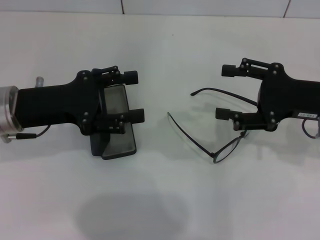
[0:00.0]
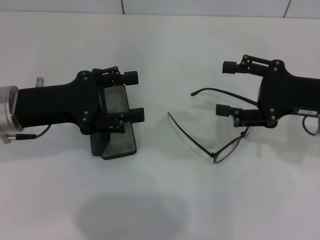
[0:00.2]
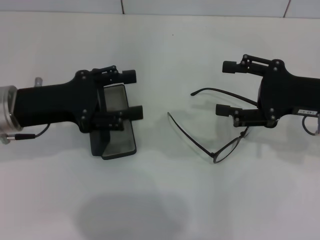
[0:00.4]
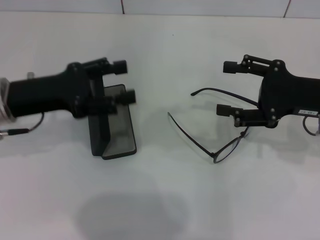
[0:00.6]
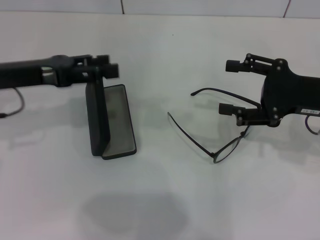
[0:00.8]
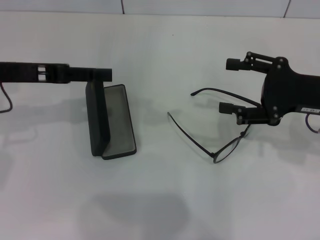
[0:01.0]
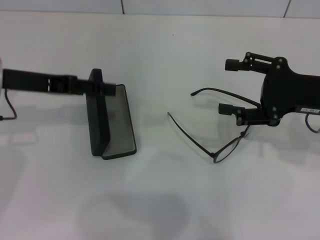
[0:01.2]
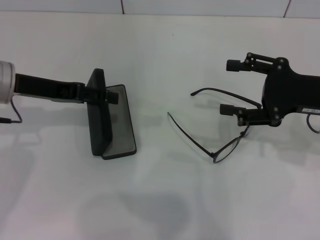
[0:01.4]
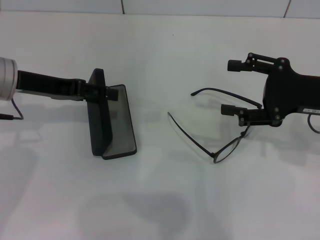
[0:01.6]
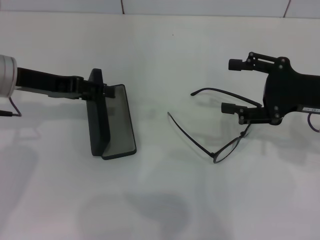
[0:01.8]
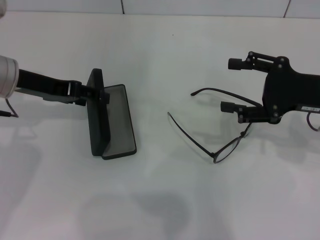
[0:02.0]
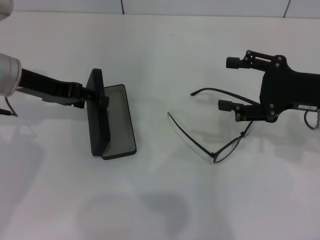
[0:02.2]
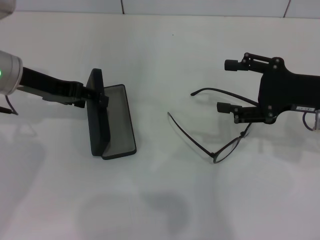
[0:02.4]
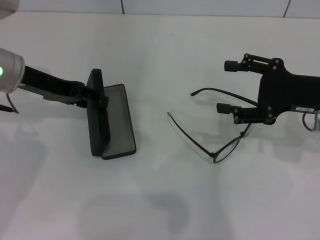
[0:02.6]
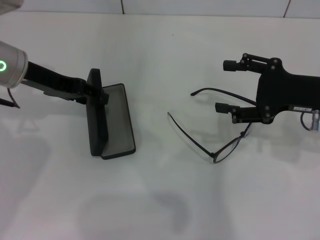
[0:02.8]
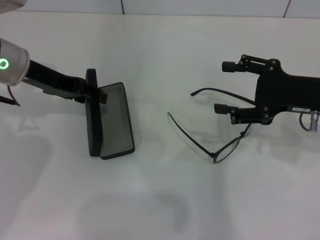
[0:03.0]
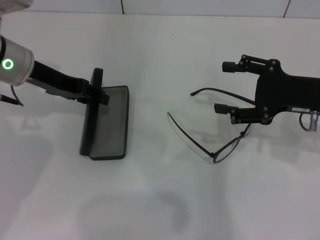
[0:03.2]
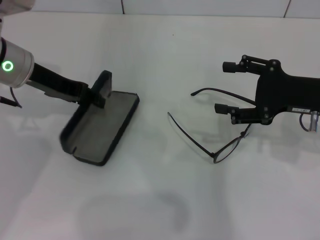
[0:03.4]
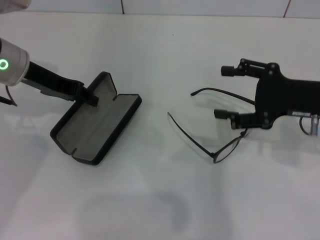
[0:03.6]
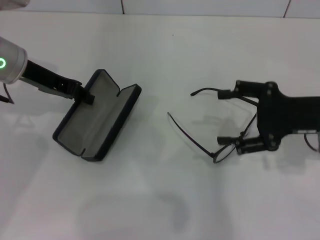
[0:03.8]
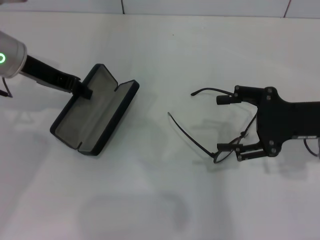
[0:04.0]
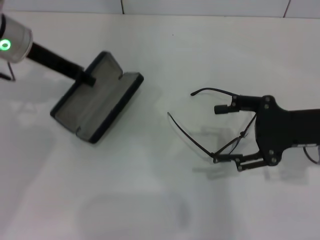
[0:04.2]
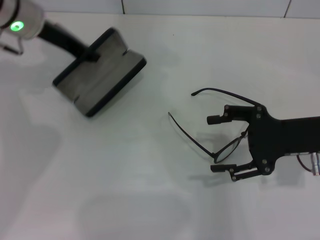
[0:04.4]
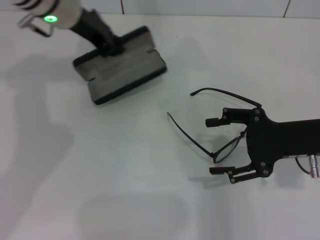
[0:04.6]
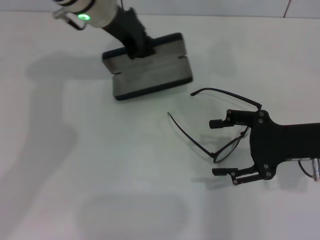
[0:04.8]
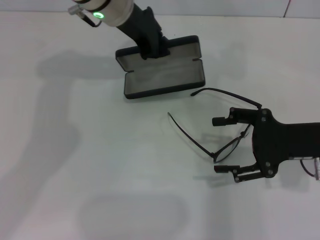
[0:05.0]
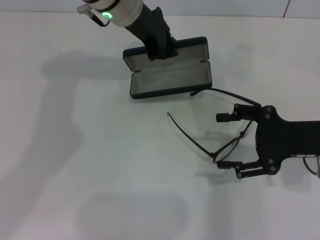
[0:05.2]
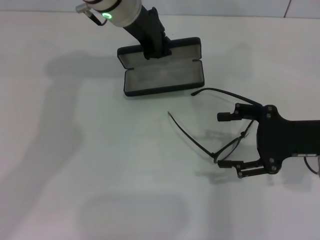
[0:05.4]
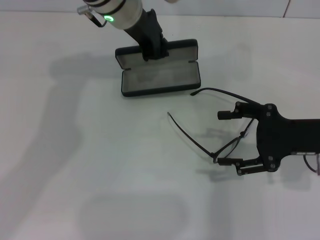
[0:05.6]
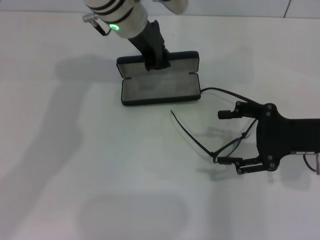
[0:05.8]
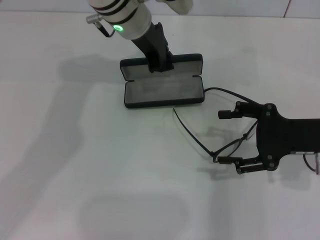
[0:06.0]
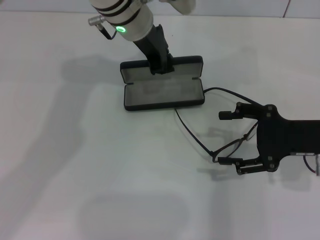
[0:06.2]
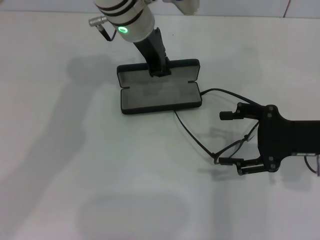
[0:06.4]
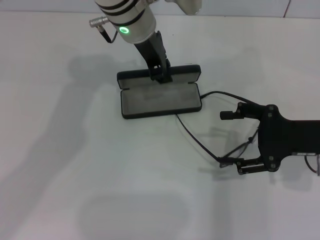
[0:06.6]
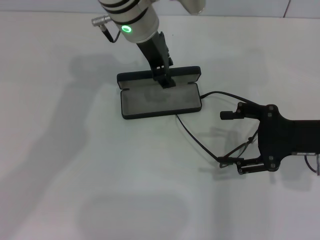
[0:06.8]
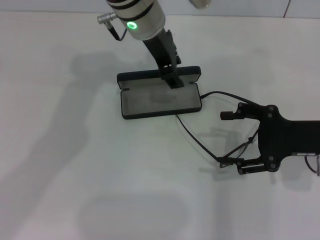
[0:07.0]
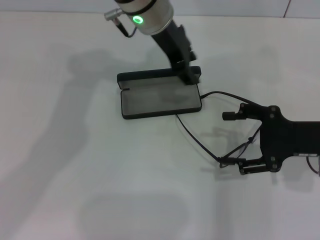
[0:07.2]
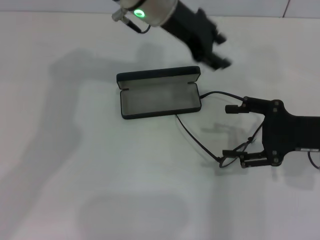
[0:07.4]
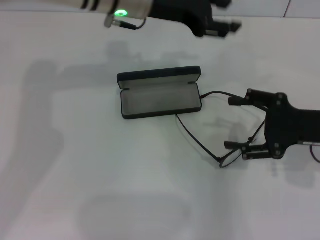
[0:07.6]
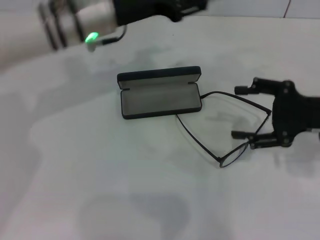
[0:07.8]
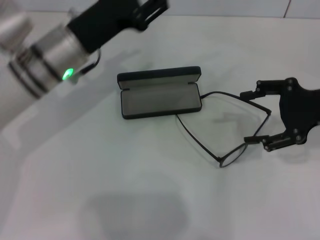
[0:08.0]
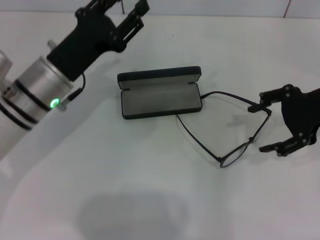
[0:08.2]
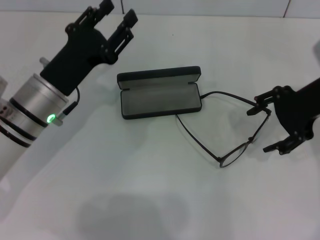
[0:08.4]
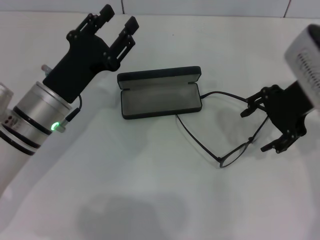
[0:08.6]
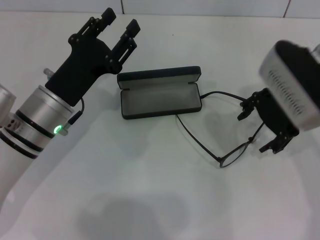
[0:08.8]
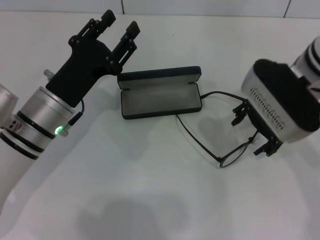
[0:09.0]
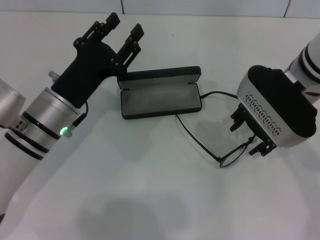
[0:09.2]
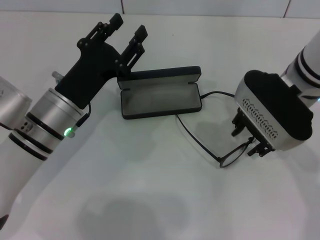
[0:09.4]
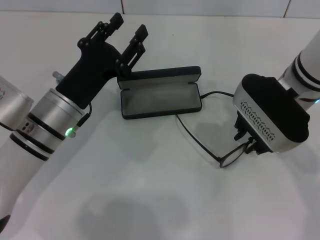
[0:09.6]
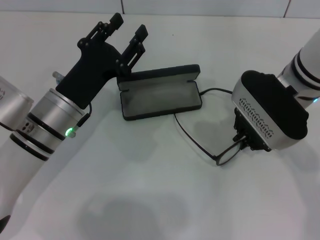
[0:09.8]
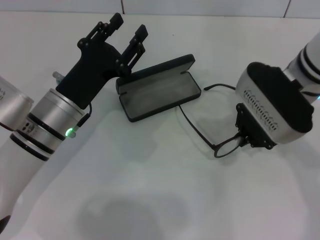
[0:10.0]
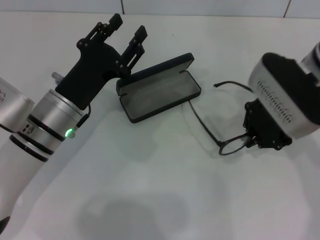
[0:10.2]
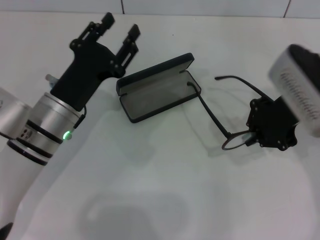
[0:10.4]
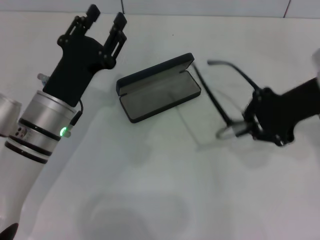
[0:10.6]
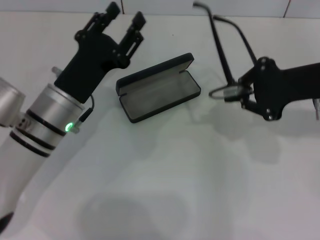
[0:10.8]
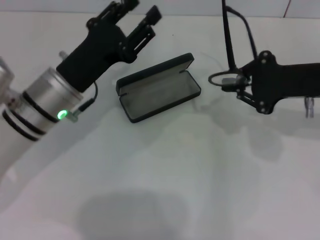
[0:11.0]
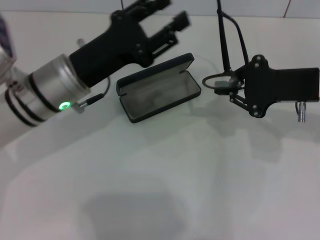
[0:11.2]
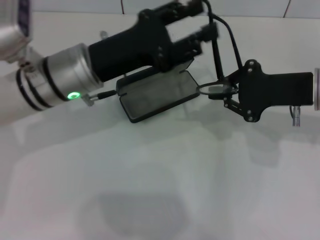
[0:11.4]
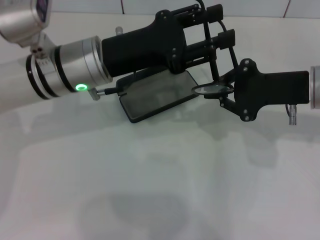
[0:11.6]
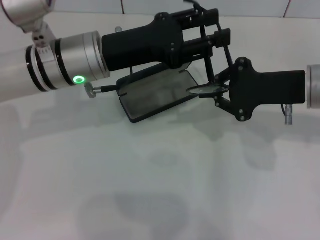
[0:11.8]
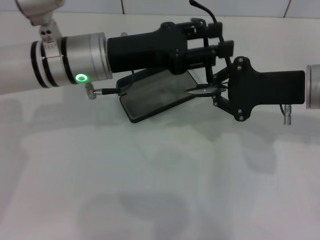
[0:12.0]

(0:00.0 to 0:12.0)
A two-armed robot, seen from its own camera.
Step, 0:00.0 - 0:02.4: Grab the glasses case with your left hand.
Step, 0:02.6 - 0:07.0: Place the glasses case in the center of the table with your left hand.
Step, 0:07.2 - 0:09.4: Grab the eyeglass frame with your right hand.
0:00.0 - 0:01.6: The left gripper moves approximately 5 cm.
0:01.6 - 0:03.0: There are only small adjustments of the grippers.
0:03.0 - 0:04.4: The left gripper heads forward, covering some 5 cm, and closes up.
0:04.4 - 0:06.0: The left gripper shifts some 15 cm to the right.
0:06.0 - 0:07.6: The left gripper opens its fingers.
0:07.6 - 0:09.0: The right gripper travels to the left, upward and forward by roughly 15 cm; the left gripper moves backward, downward and to the left, roughly 20 cm.
0:09.0 - 0:10.4: The right gripper closes its fingers.
0:10.4 - 0:12.0: The left gripper moves upward and forward, some 10 cm.

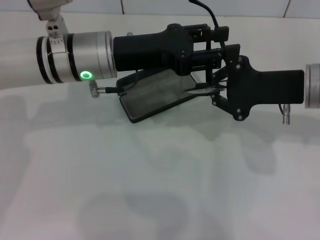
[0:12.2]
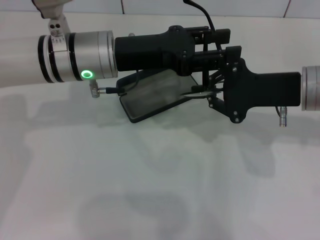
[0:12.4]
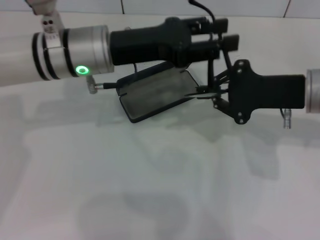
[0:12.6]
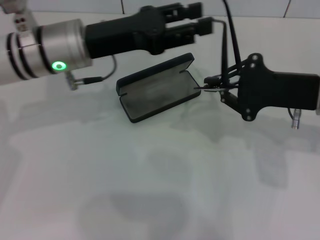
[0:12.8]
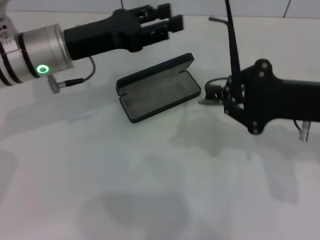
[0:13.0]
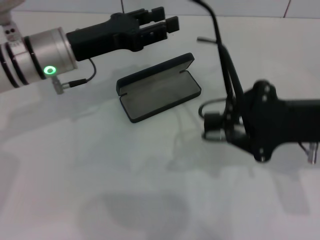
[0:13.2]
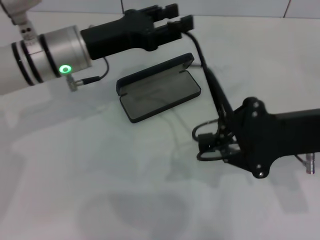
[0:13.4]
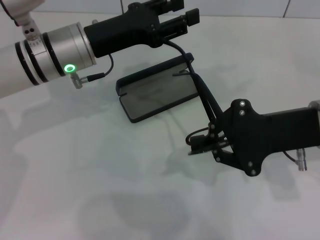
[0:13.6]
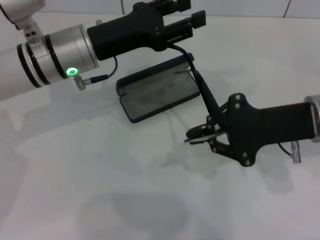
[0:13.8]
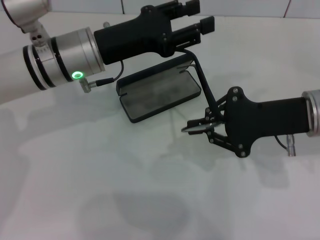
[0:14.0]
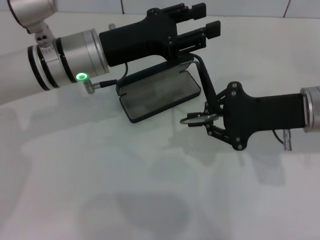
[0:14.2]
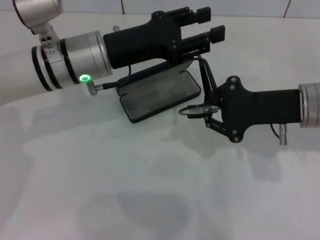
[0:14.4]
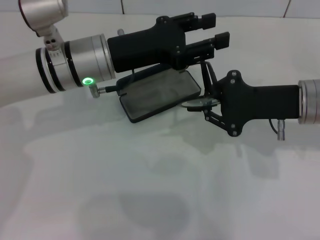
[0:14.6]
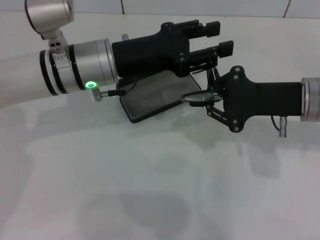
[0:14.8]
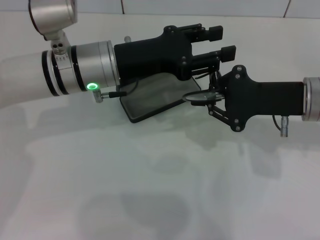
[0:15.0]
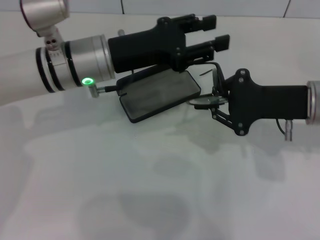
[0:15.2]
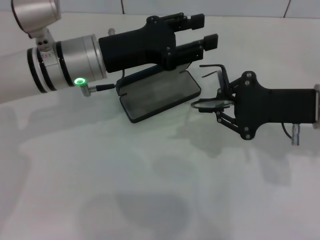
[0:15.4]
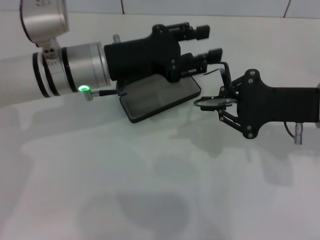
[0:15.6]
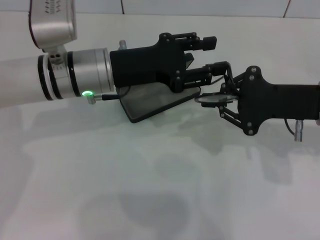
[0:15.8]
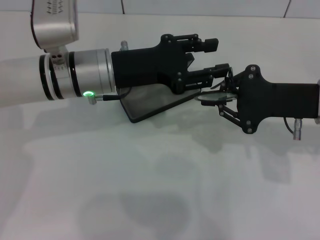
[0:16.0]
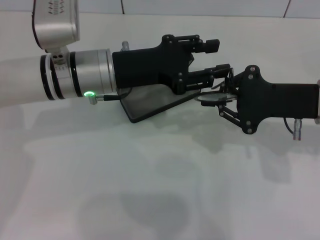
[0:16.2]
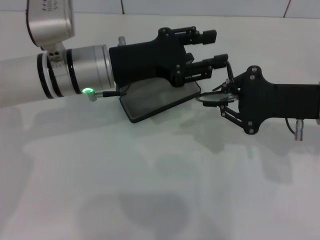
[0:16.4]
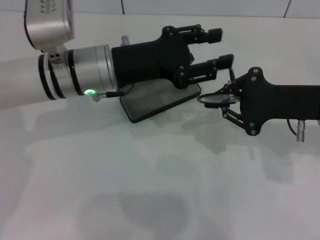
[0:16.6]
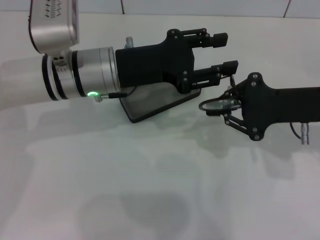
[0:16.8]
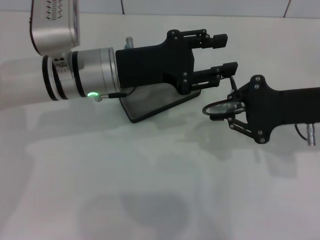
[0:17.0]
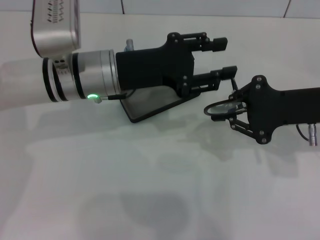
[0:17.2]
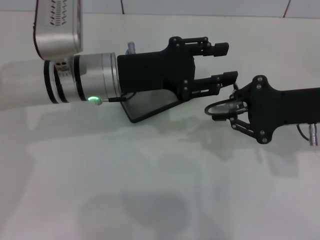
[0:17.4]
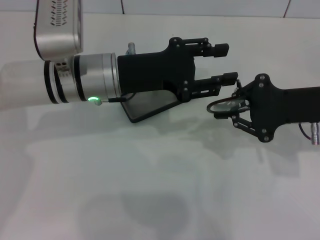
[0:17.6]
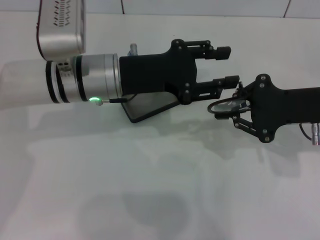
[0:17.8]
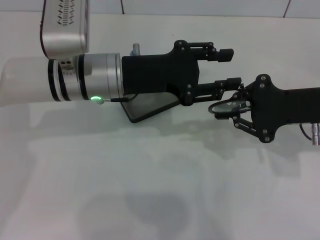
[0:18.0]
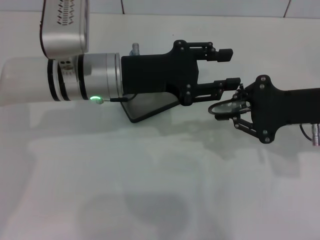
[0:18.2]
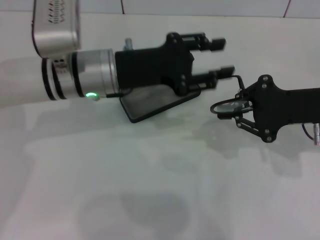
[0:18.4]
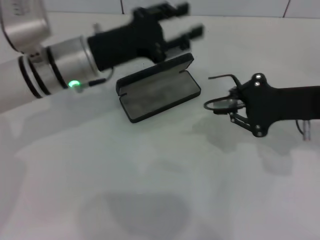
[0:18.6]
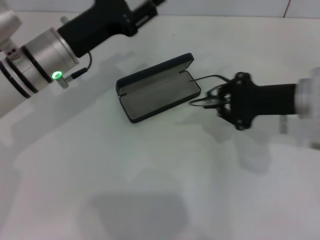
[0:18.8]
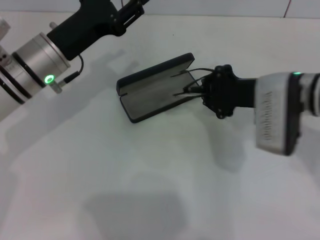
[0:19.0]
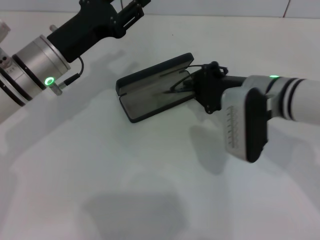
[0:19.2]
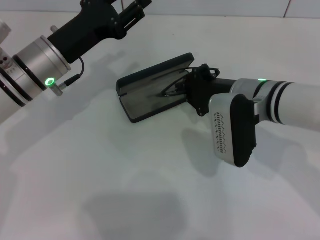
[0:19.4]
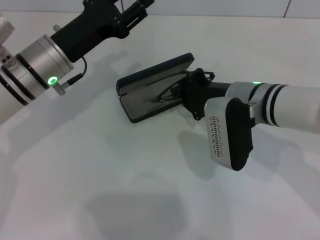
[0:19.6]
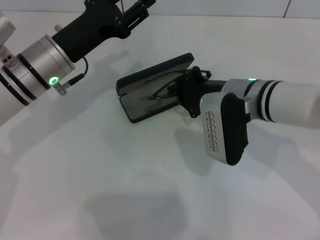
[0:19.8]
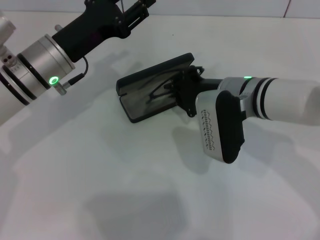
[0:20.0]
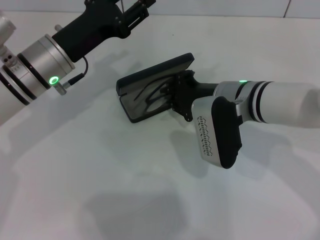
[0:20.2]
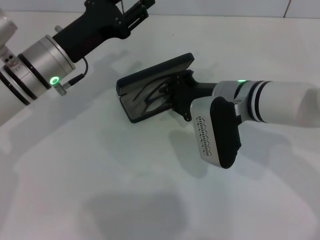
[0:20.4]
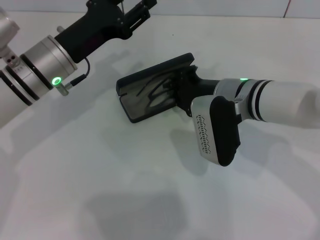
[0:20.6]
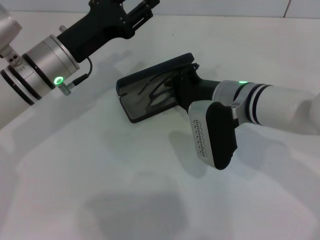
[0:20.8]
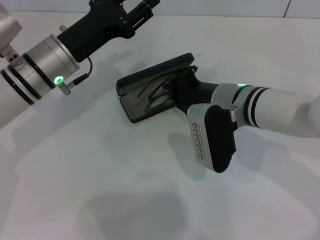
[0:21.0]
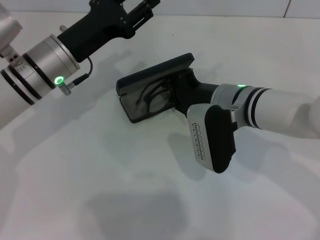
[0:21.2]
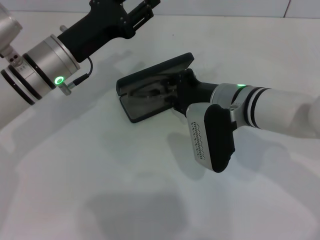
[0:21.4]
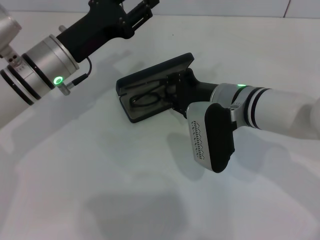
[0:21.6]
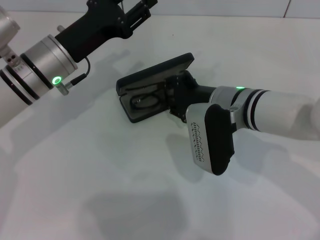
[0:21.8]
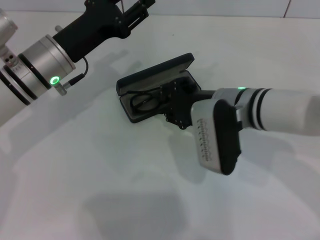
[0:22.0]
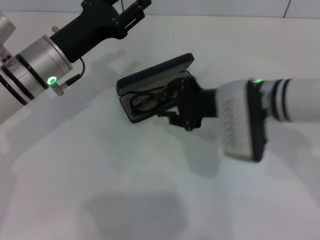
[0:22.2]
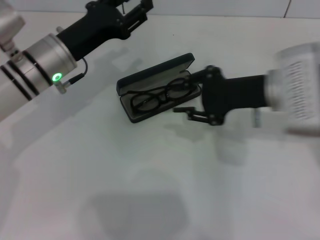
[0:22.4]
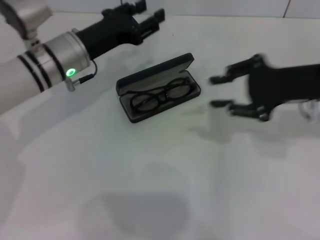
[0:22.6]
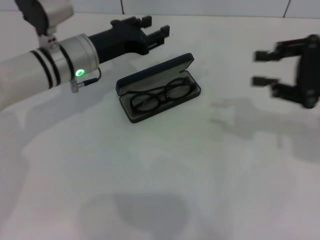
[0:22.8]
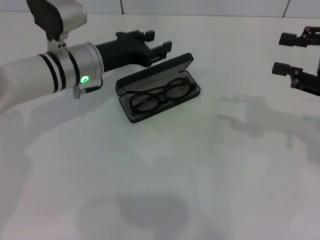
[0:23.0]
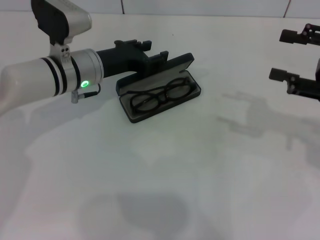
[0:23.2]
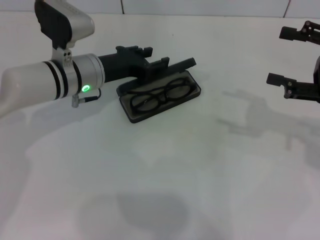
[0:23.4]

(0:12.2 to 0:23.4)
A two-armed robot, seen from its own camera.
Step, 0:12.2 - 0:16.2: Fold the frame with your left hand.
Step, 0:16.4 - 0:21.4: Put the glasses into the case with your right hand.
0:15.4 - 0:18.6: The grippers move only a little.
0:18.6 - 0:20.2: The right gripper is displaced to the left by some 15 cm.
0:20.2 - 0:21.8: The grippers move only a little.
0:21.8 - 0:23.4: The right gripper is displaced to the right by about 20 cm, while the left gripper ends up roughly 5 cm from where it was.
